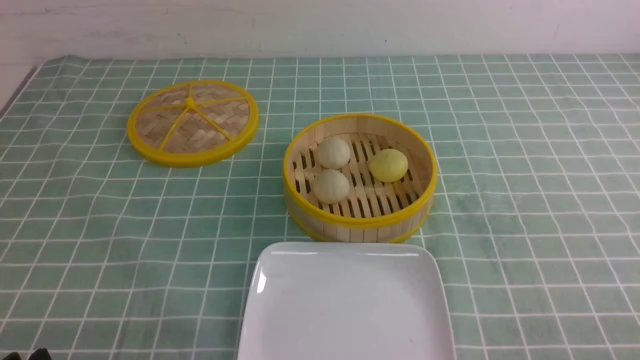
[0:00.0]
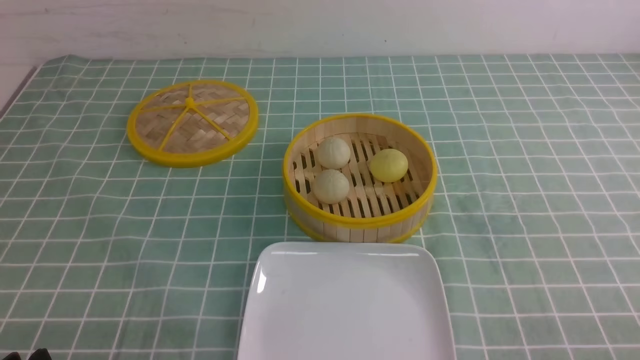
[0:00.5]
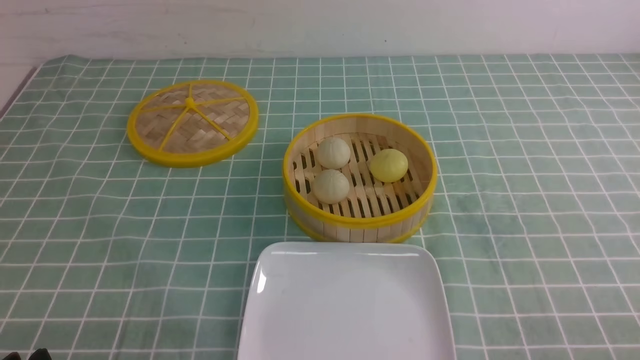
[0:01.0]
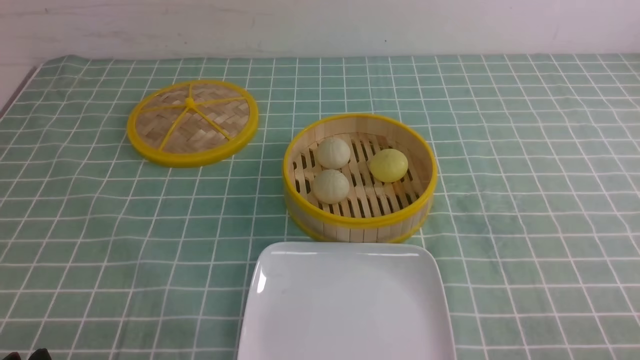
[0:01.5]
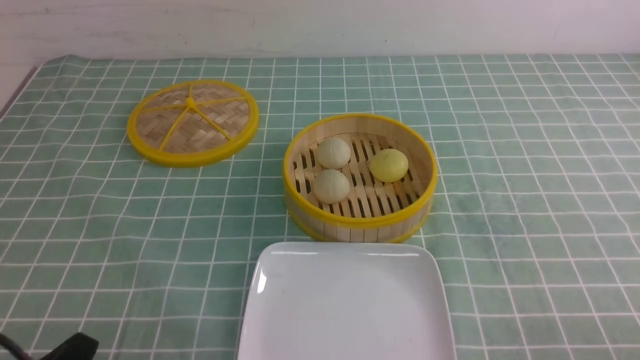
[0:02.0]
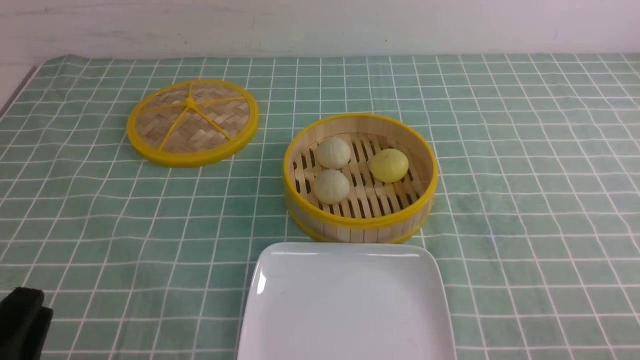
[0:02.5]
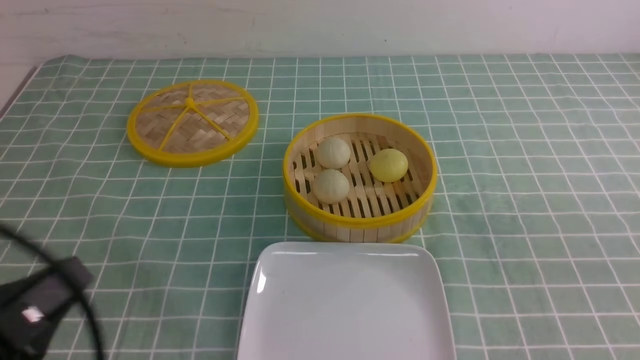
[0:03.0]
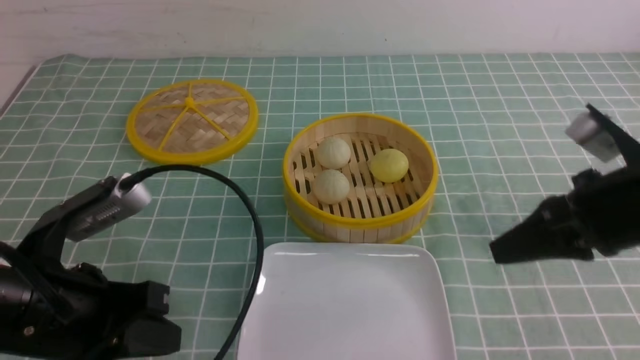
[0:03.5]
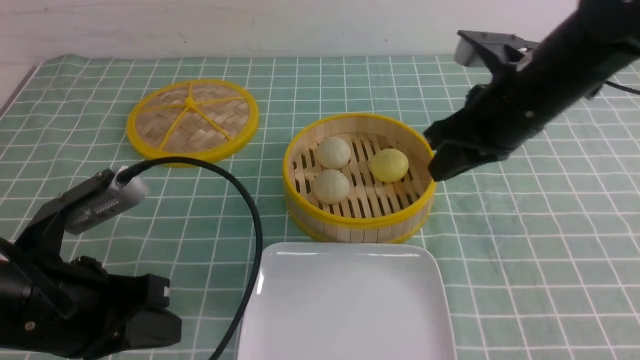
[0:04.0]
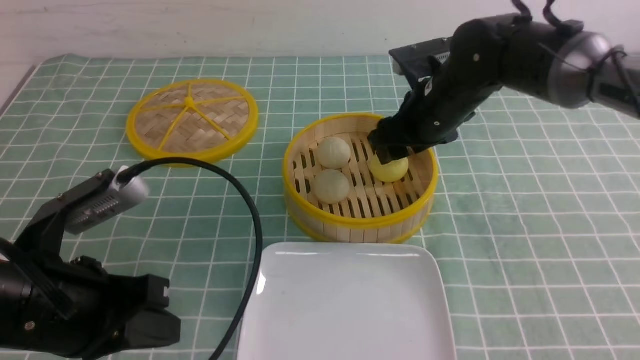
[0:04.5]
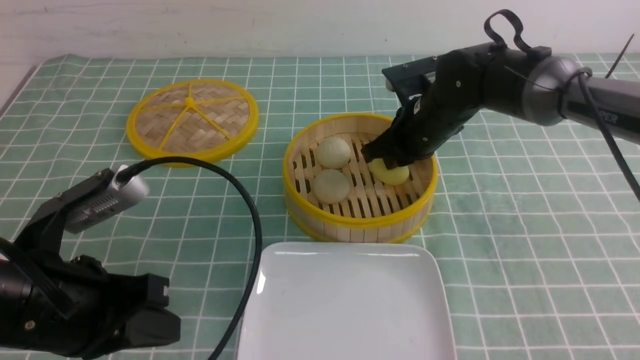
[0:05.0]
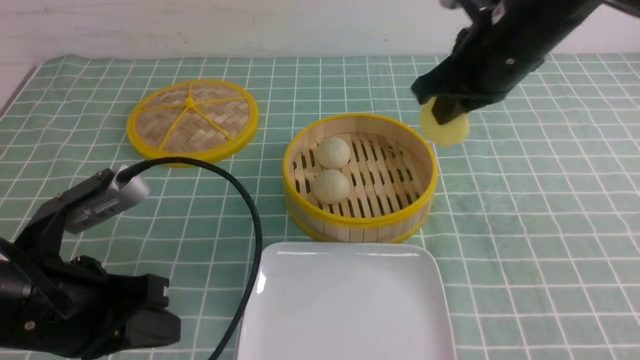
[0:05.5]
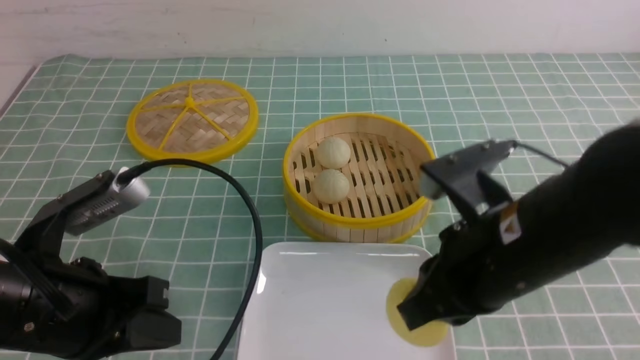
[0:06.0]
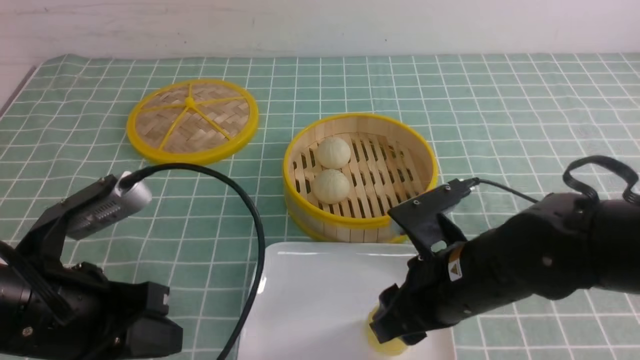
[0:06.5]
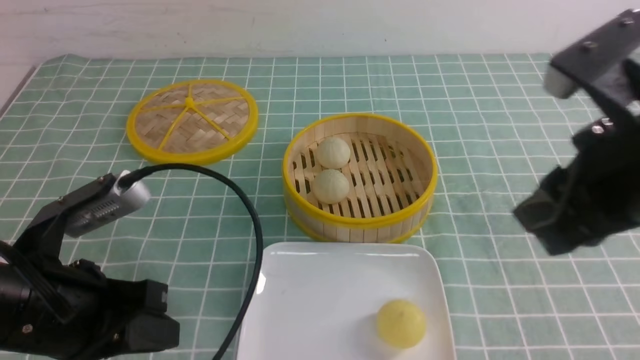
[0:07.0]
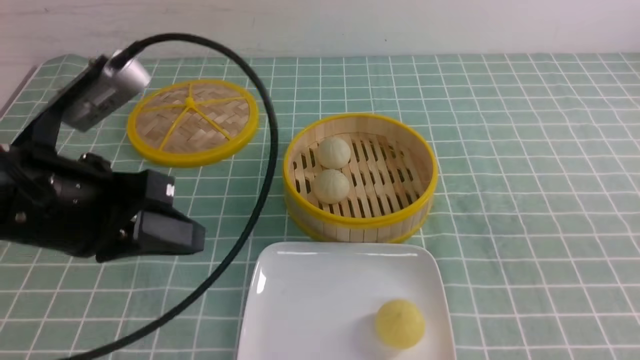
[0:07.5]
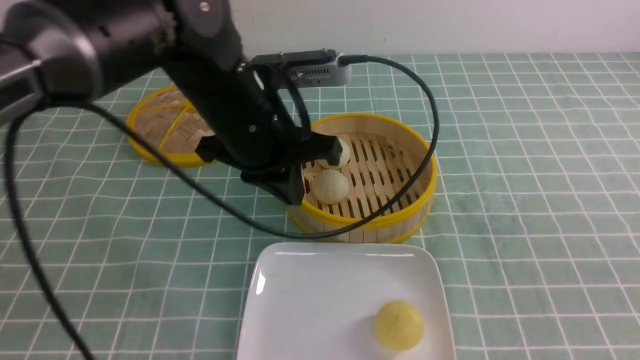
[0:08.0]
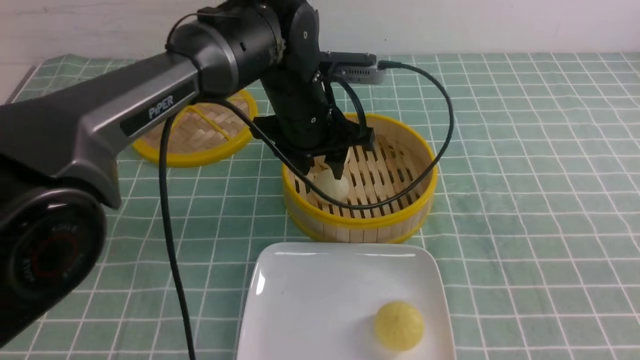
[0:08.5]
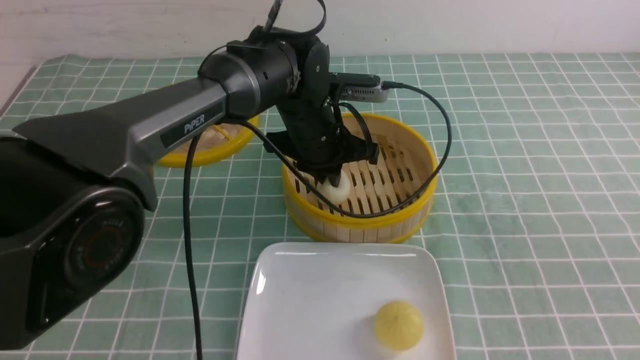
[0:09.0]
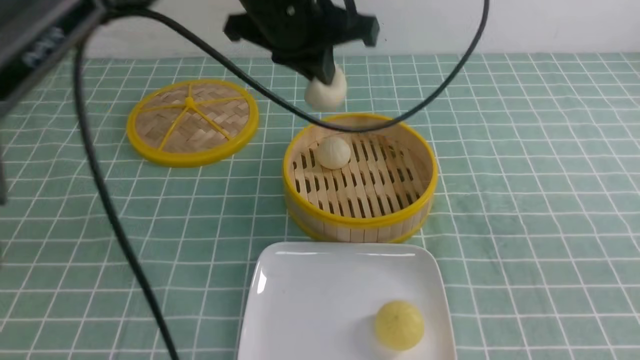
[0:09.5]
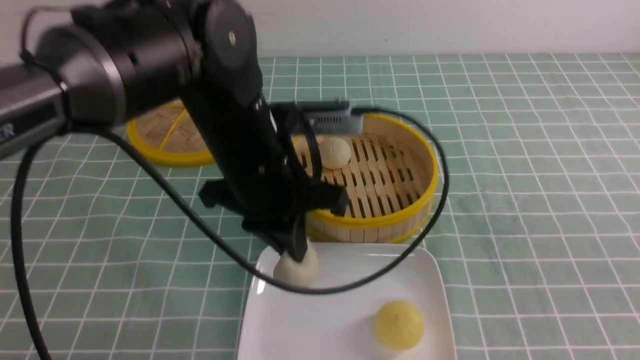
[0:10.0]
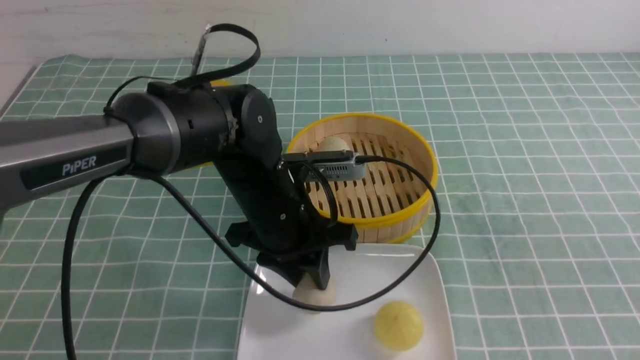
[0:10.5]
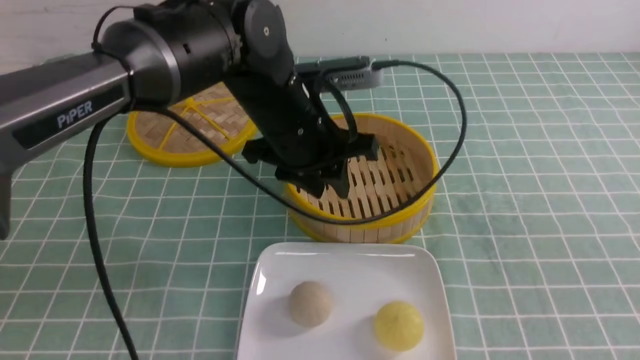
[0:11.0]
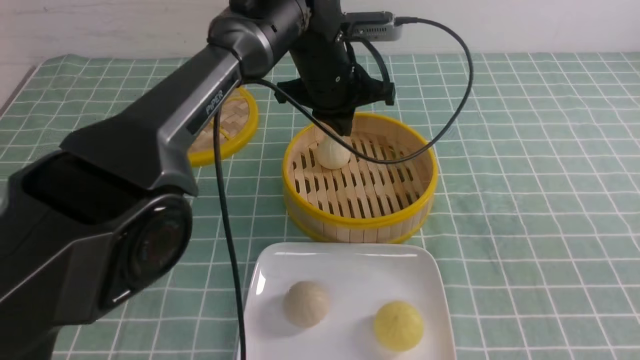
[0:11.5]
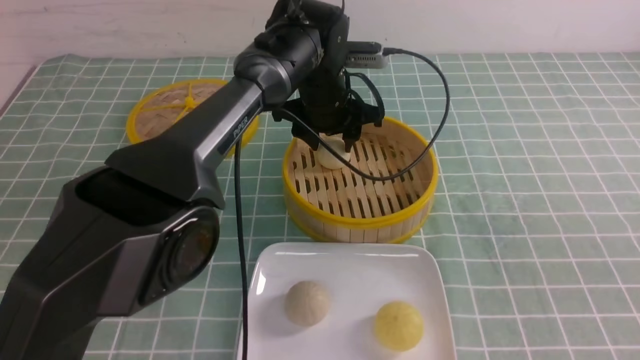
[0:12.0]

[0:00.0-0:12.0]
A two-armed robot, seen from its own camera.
Step, 0:00.0 to 0:04.5: use the right arm to grab the steamed stuffed bun that is closest to it.
Step, 0:05.5 to 0:06.5: use the right arm to put the steamed stuffed bun into the plate.
Step, 0:07.0 to 0:09.0: use the left arm to grab the steamed stuffed bun that is closest to it.
Step, 0:09.5 to 0:10.5: use the left arm to put the steamed stuffed bun into the plate.
0:02.0 to 0:04.0: The right gripper moves forward, to the left and upward, about 35 cm. The left gripper shifts roughly 15 cm forward and upward, and closes its fingers.
0:04.0 to 0:06.0: The right gripper shifts about 10 cm backward, and opens and closes again.
0:06.0 to 0:08.0: The right gripper goes approximately 20 cm to the right, backward and upward, and opens and closes again. The left gripper travels forward and to the right by roughly 20 cm.
0:08.0 to 0:10.0: The left gripper moves up and down over about 15 cm, changing direction 2 times, and opens, then closes once more.
0:10.0 to 0:12.0: The left gripper shifts about 15 cm forward, and opens its fingers.

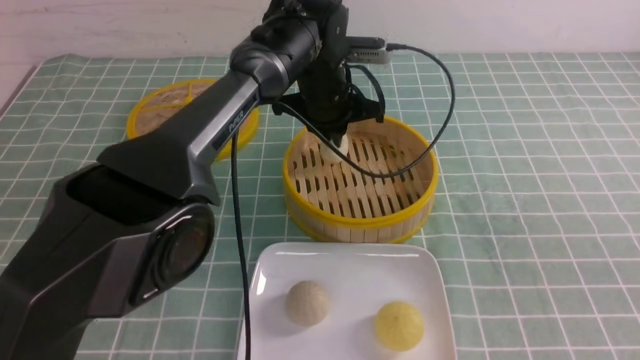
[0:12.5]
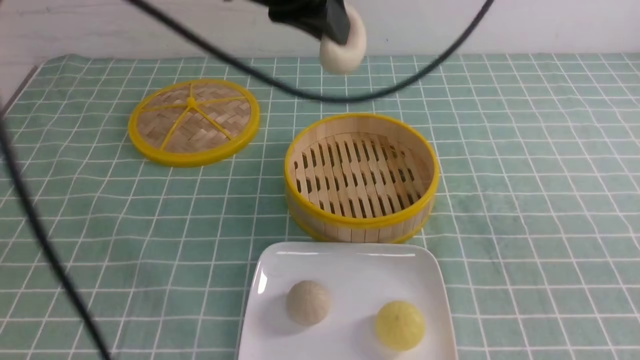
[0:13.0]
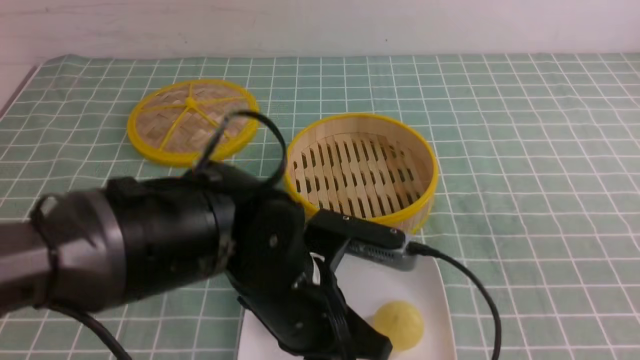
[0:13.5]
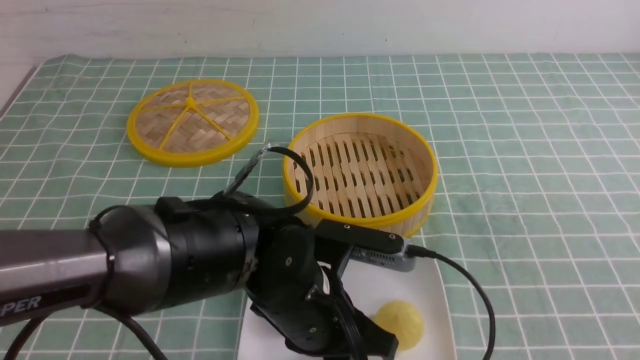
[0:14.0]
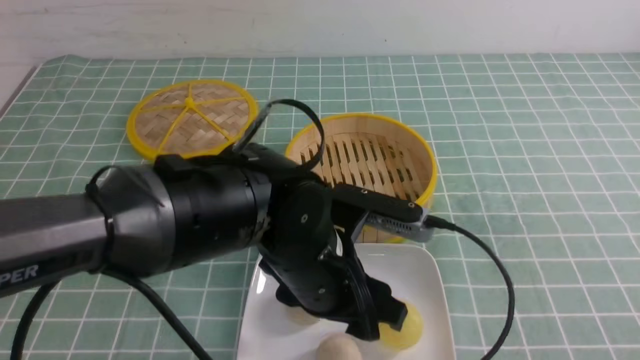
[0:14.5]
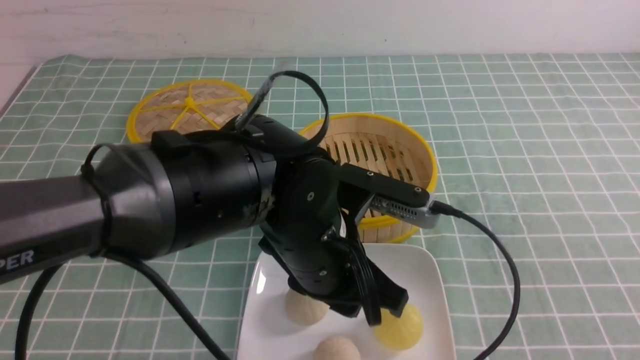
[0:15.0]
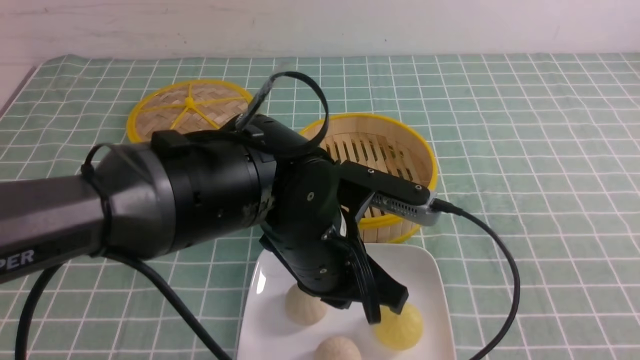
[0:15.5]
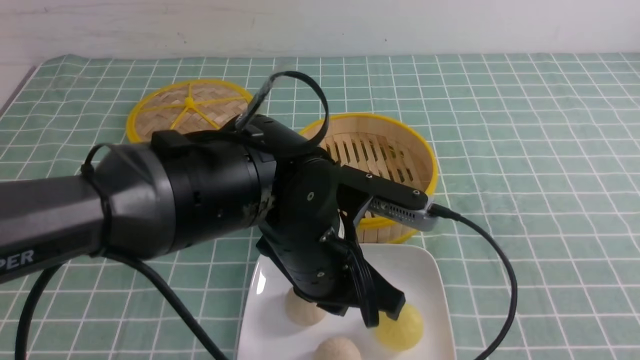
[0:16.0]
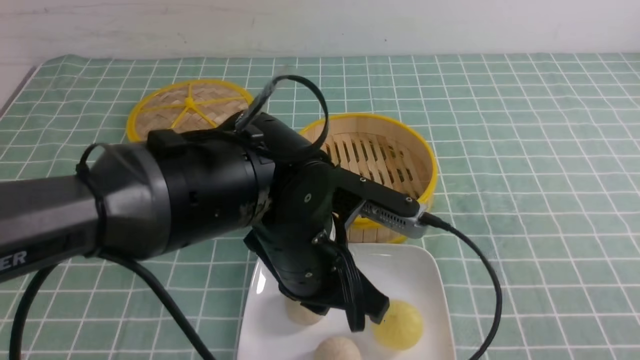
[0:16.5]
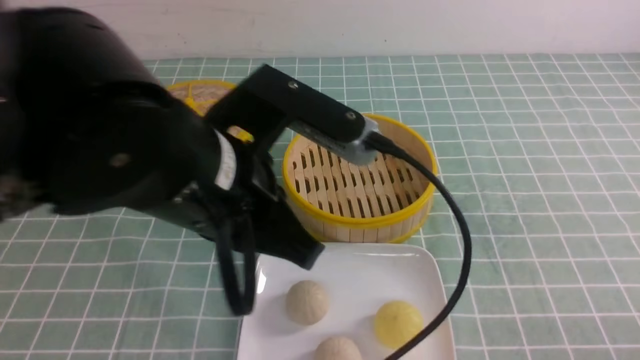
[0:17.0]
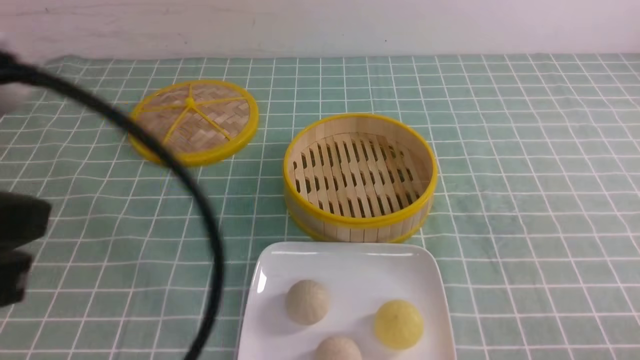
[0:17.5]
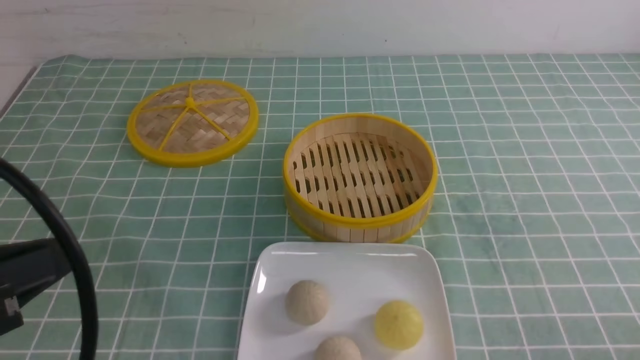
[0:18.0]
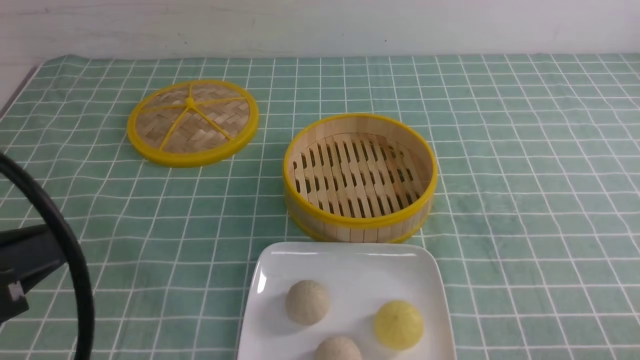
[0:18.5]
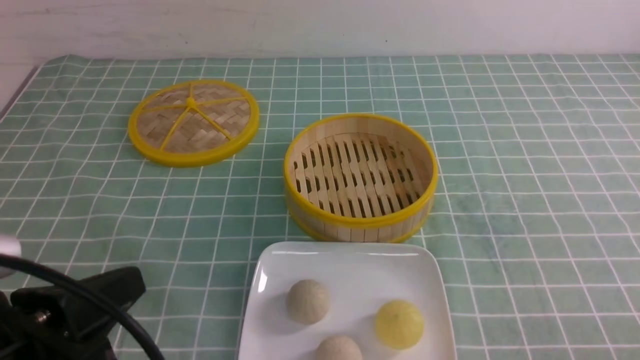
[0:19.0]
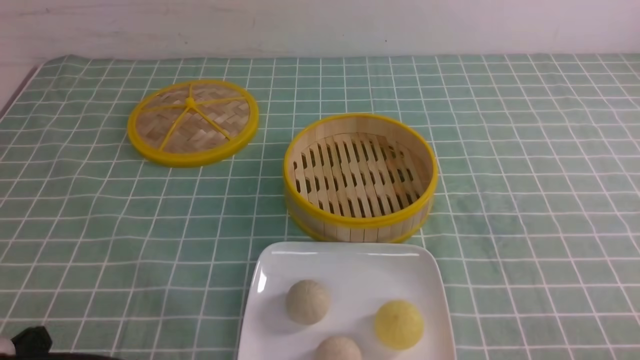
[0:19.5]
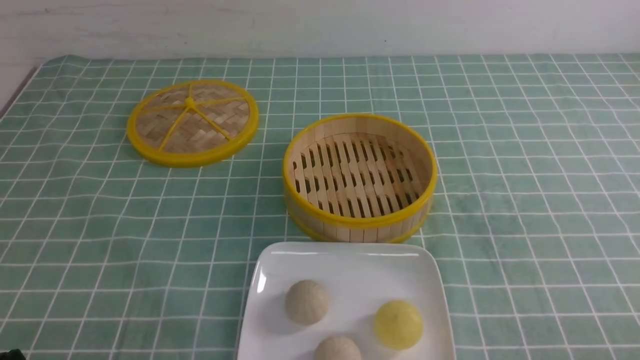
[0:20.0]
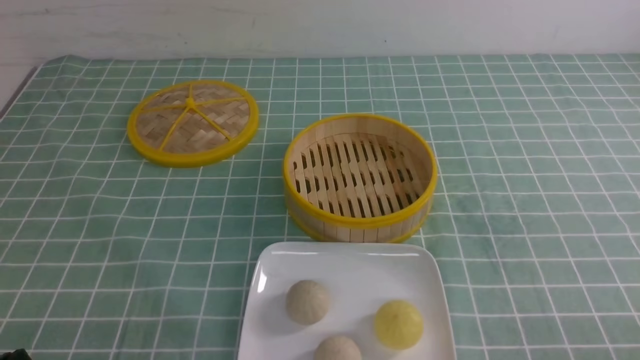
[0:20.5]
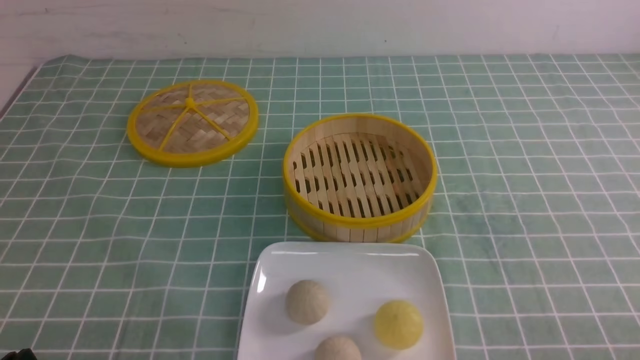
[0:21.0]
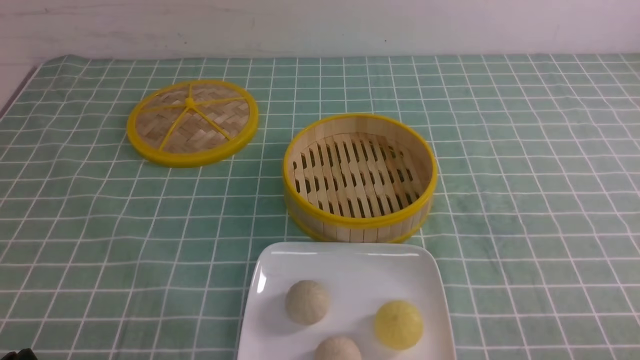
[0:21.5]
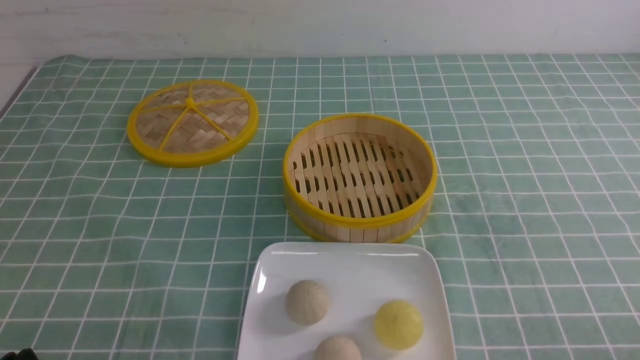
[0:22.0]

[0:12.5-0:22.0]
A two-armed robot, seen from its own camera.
Step, 0:12.5 to 0:14.0: use the left arm to put the steamed stuffed bun into the plate.
0:12.5 to 0:14.5: The left gripper heads backward, covering some 25 cm, and opens; the right gripper travels backward and to the right by about 15 cm.
0:14.5 to 0:16.5: The left gripper closes up. Meanwhile the right gripper shifts roughly 10 cm downward and forward.
0:16.5 to 0:18.0: The left gripper shifts roughly 30 cm to the left, backward and upward; the right gripper shifts about 5 cm downward.
0:18.0 to 0:20.0: The left gripper shifts about 20 cm downward.
0:20.0 to 0:22.0: Neither gripper changes place.
